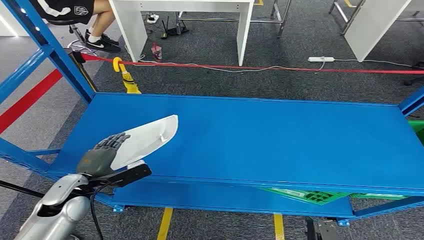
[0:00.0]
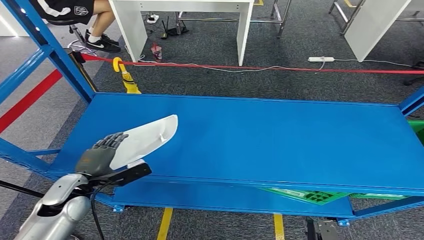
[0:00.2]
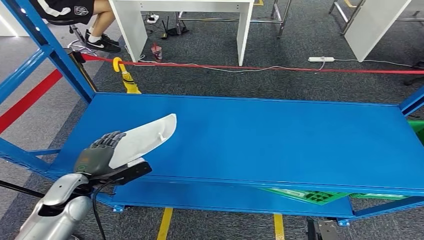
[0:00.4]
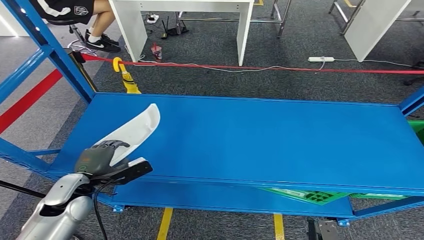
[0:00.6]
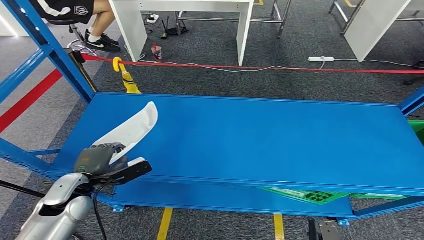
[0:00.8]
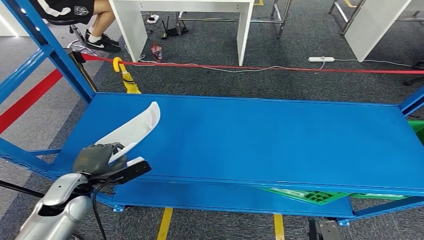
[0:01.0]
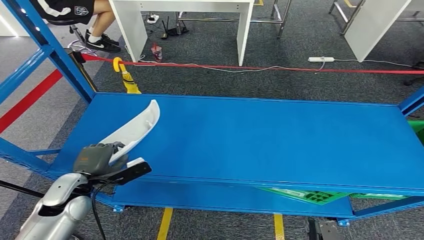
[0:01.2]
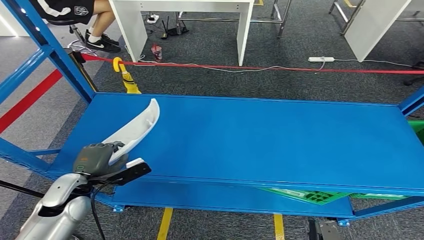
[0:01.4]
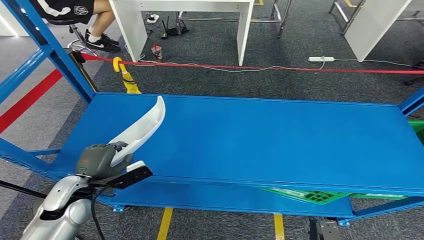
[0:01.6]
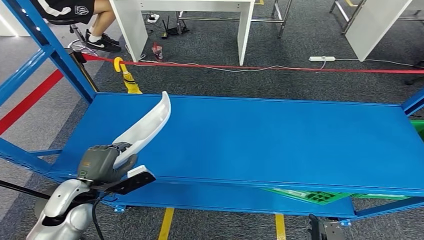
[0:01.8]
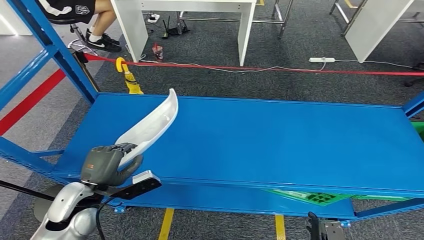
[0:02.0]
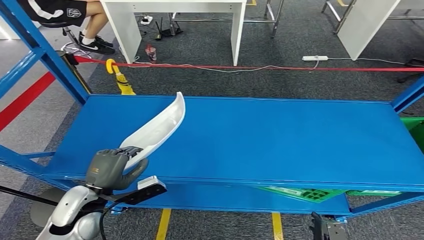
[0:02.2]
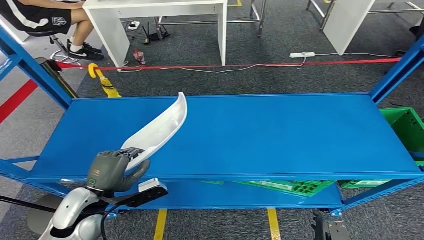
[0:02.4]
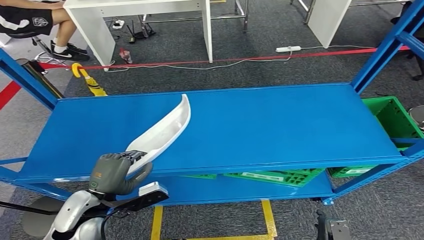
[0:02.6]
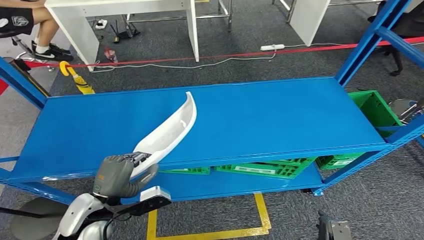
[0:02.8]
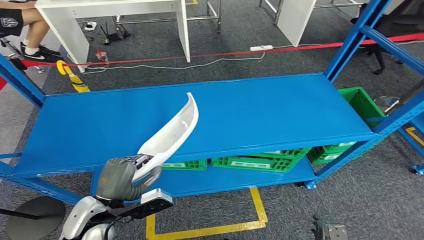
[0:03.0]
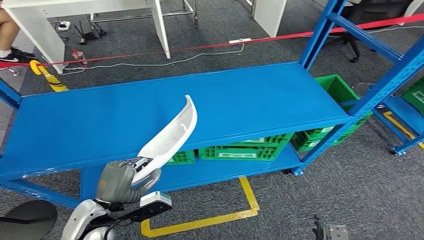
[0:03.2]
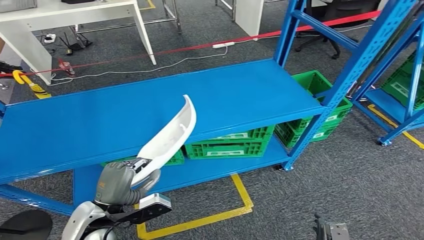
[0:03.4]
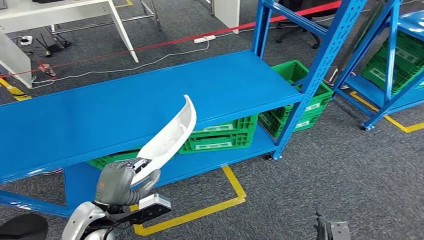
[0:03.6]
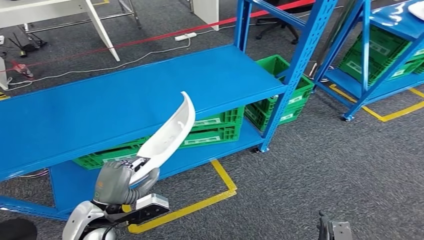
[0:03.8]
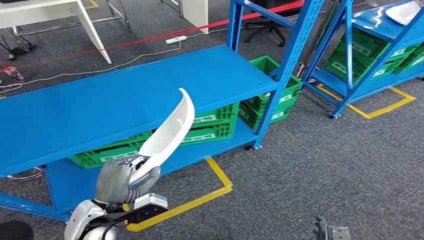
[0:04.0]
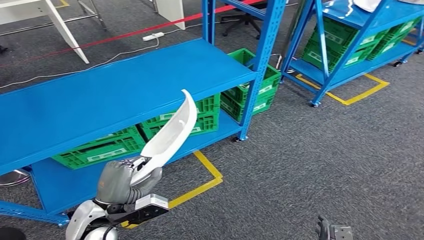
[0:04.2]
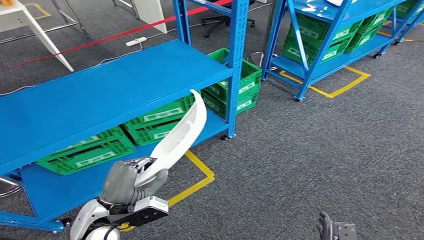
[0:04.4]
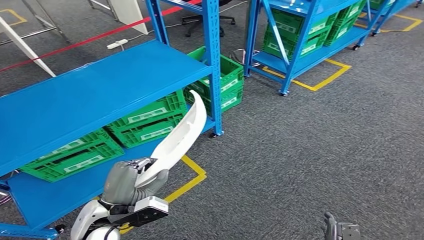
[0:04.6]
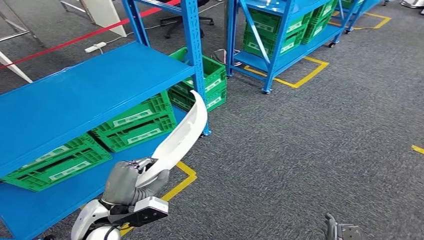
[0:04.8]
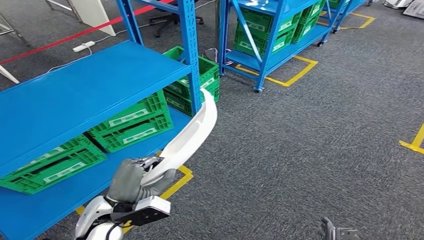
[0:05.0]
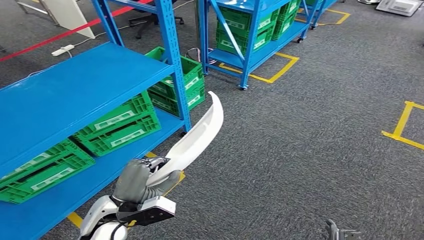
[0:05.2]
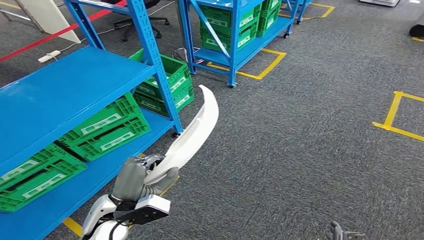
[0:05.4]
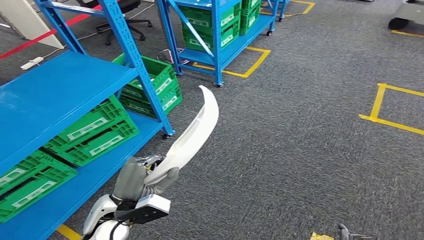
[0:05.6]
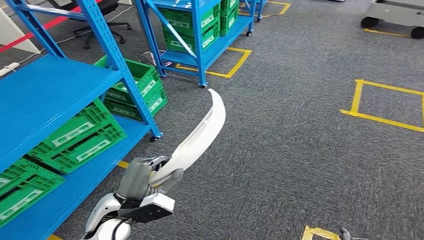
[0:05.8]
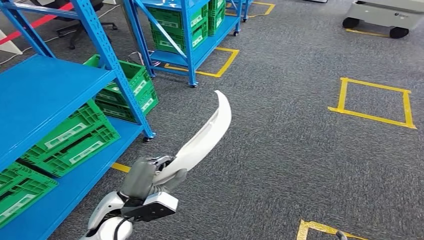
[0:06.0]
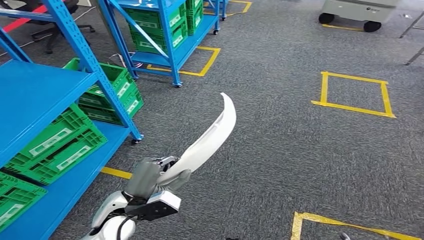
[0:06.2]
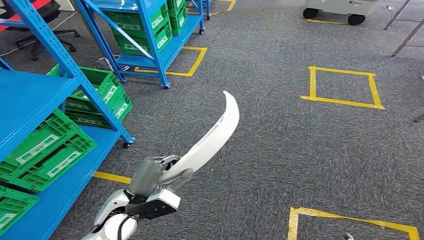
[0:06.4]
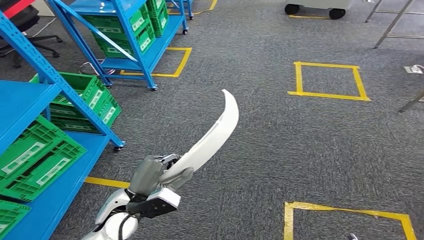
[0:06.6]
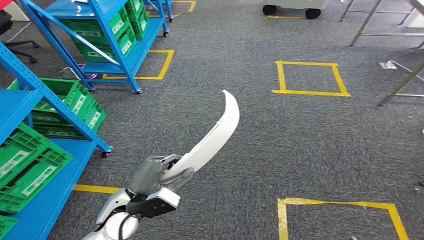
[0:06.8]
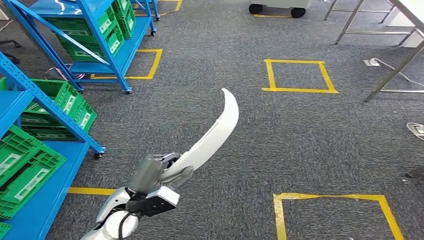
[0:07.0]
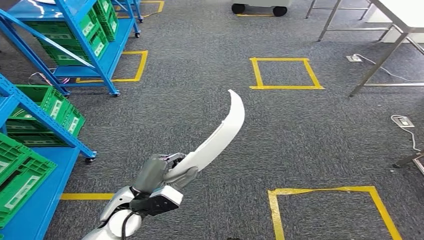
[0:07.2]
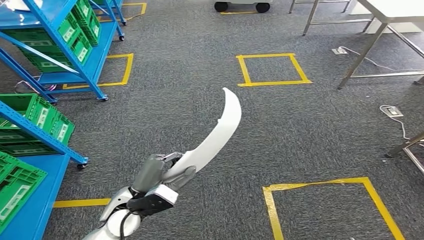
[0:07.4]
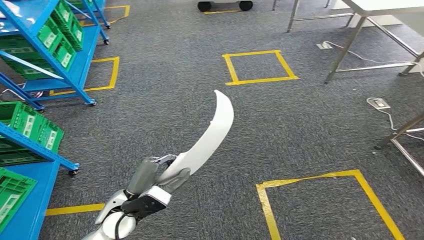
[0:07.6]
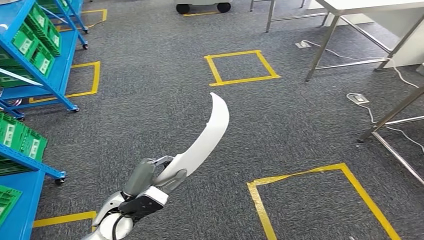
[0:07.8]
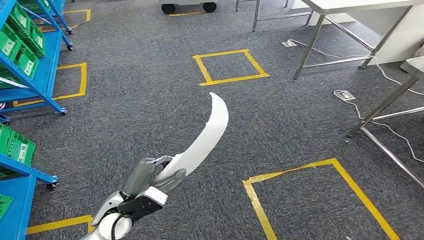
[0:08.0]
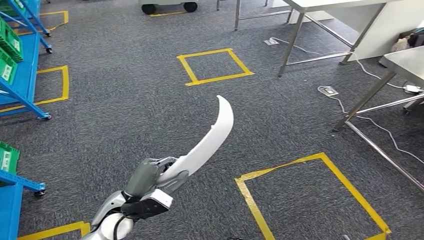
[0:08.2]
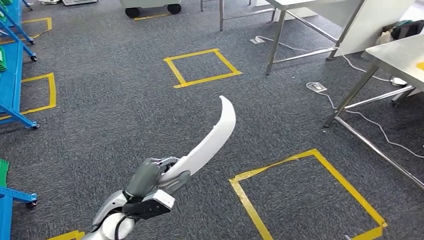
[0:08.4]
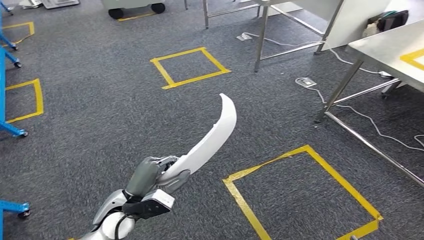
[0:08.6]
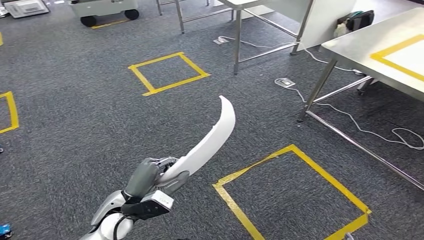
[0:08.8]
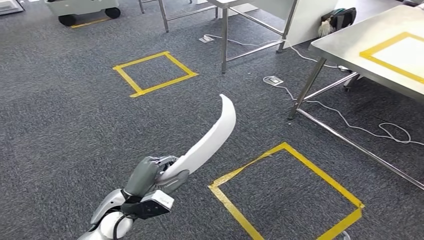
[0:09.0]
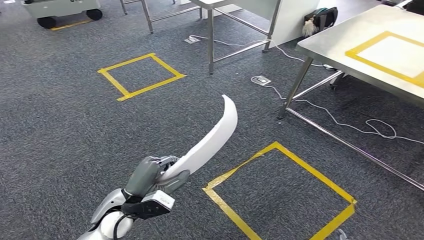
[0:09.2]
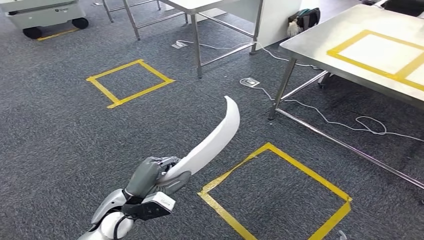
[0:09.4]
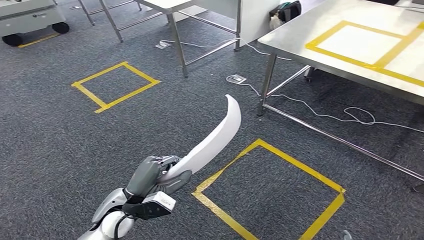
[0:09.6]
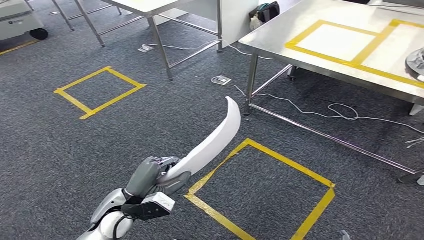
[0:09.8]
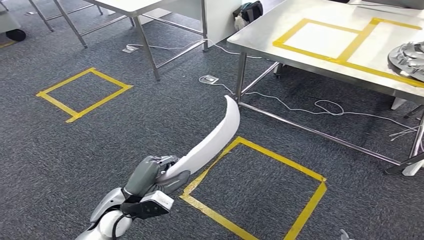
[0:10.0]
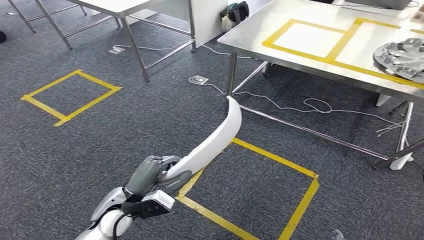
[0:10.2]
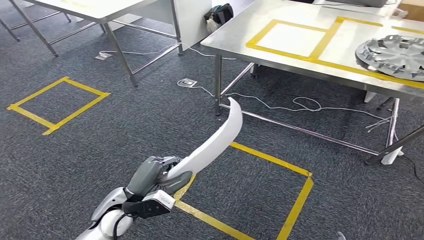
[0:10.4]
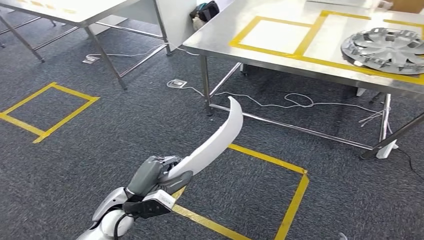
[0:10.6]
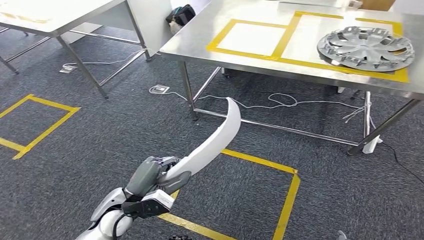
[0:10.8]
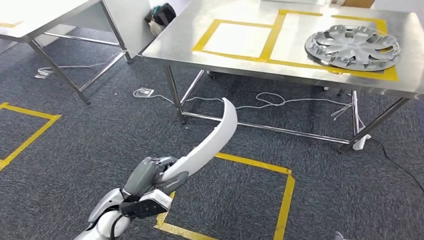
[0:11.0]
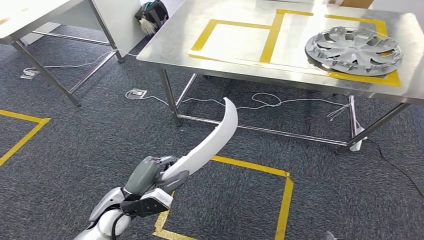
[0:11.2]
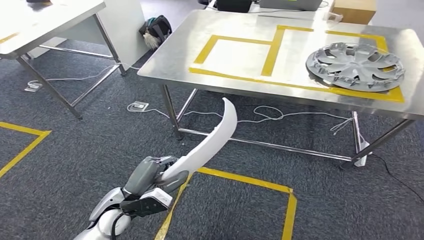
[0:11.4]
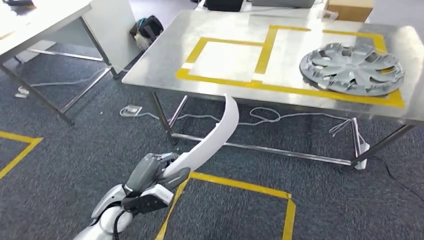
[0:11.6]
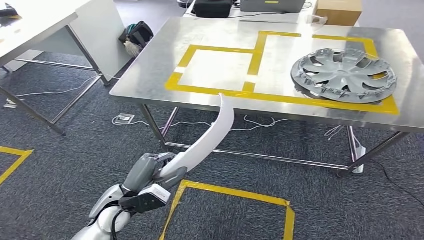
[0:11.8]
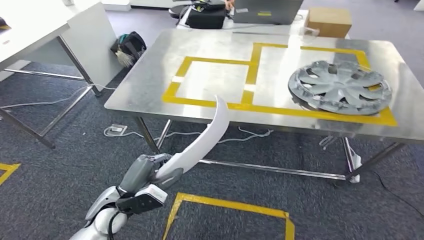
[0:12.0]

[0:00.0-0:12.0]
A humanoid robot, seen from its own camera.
Step, 0:00.0 to 0:02.4: Pick up the small parts from the shelf.
Step, 0:02.6 to 0:11.4: Move the small parts to the workbench.

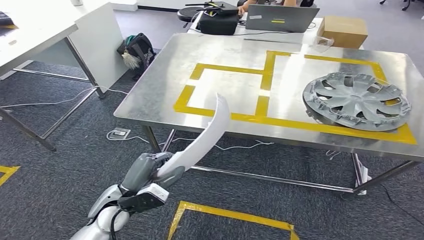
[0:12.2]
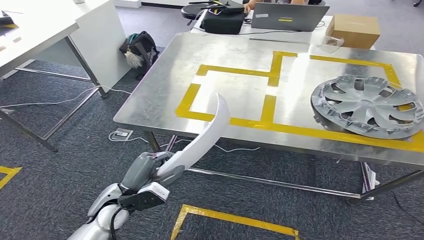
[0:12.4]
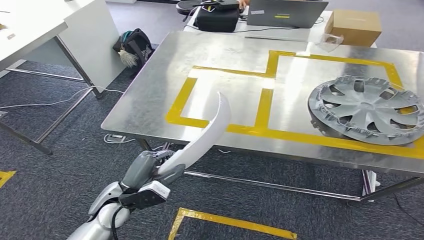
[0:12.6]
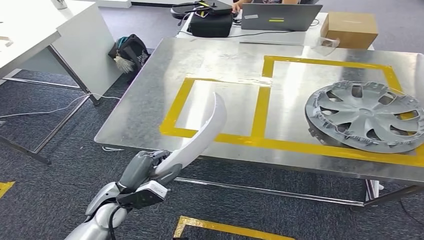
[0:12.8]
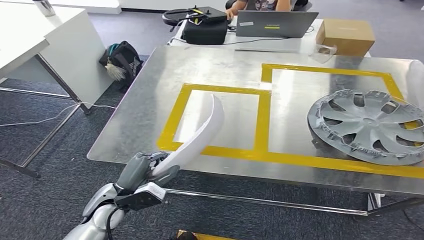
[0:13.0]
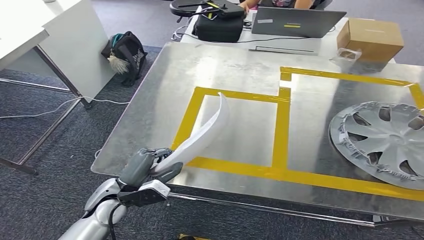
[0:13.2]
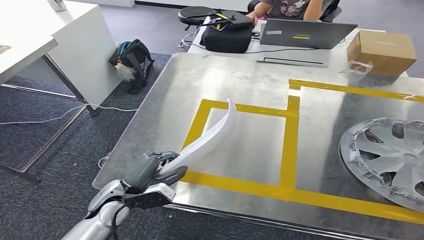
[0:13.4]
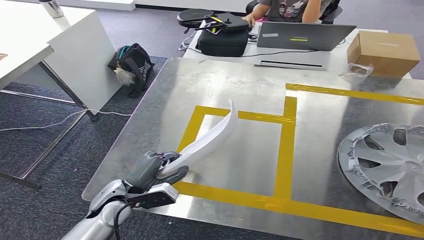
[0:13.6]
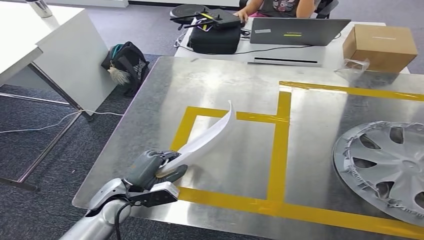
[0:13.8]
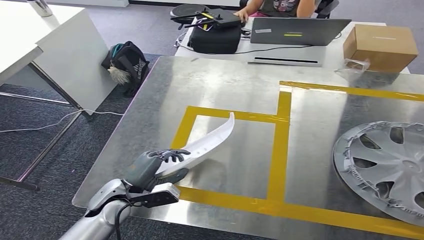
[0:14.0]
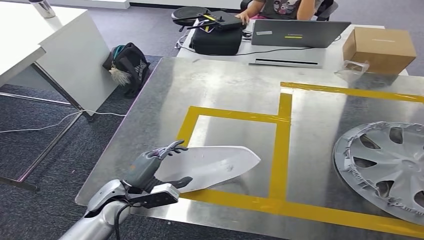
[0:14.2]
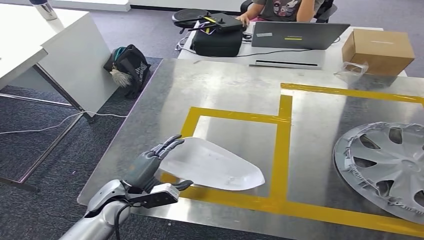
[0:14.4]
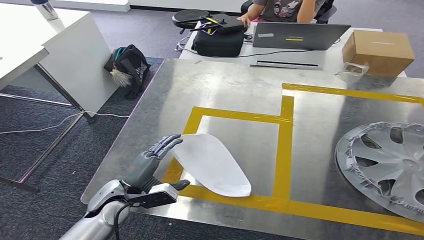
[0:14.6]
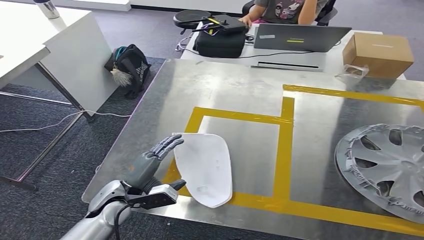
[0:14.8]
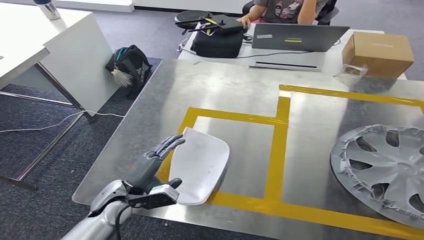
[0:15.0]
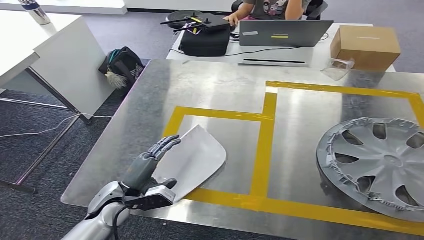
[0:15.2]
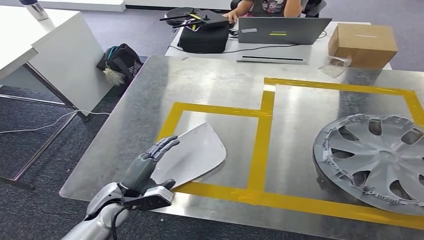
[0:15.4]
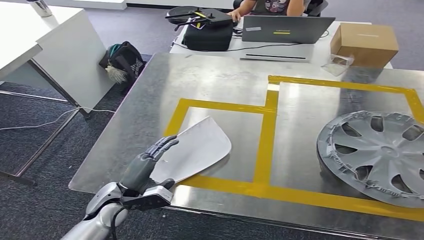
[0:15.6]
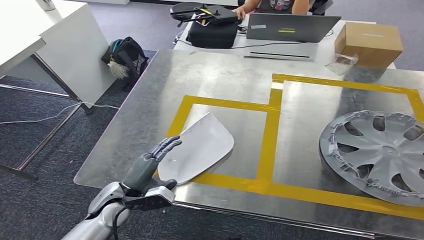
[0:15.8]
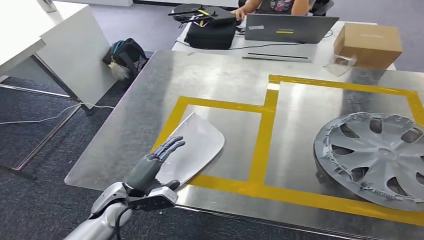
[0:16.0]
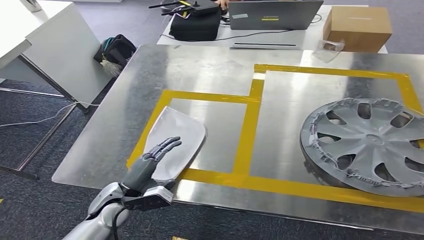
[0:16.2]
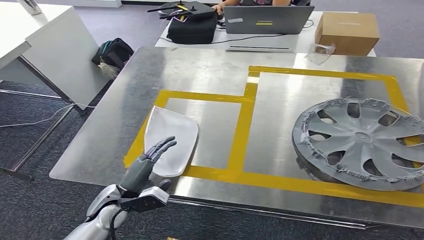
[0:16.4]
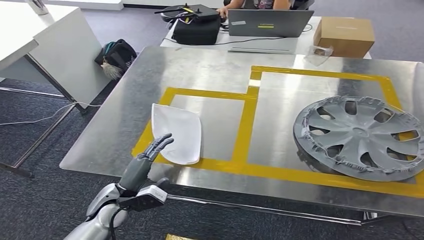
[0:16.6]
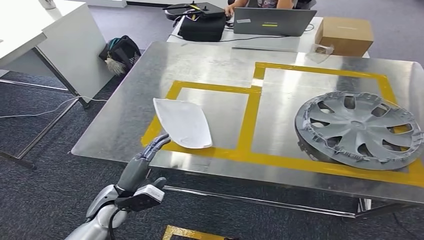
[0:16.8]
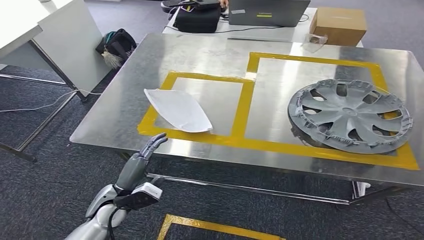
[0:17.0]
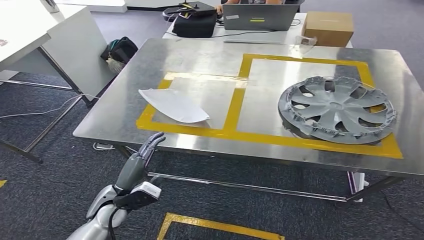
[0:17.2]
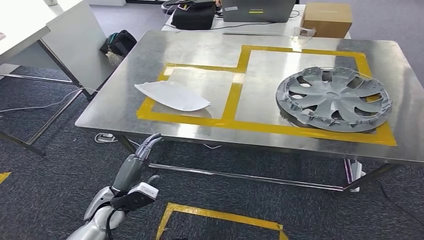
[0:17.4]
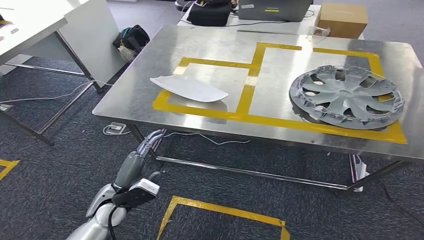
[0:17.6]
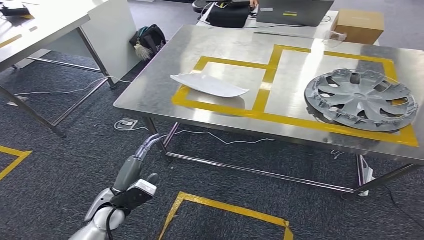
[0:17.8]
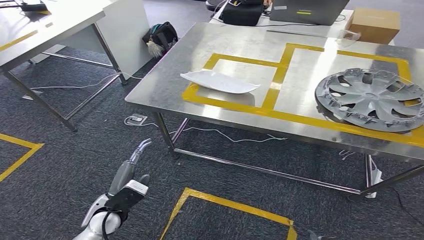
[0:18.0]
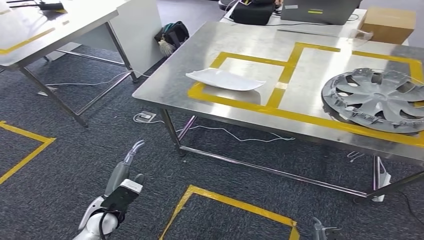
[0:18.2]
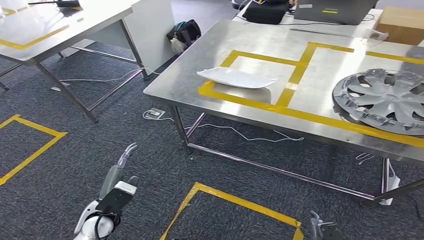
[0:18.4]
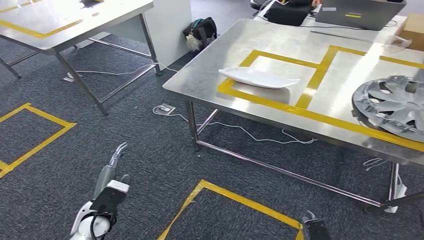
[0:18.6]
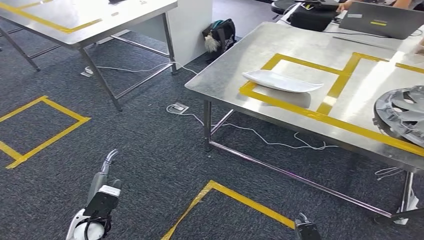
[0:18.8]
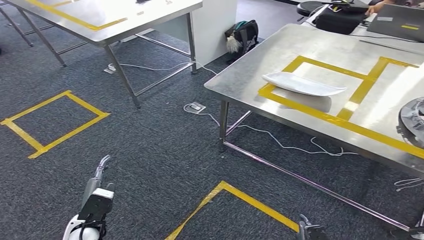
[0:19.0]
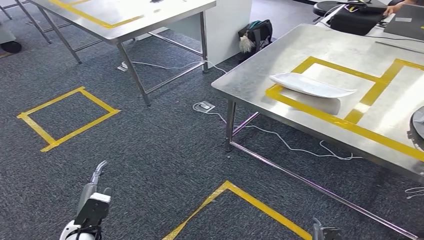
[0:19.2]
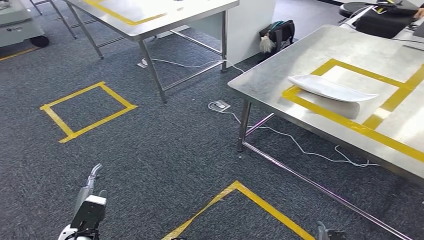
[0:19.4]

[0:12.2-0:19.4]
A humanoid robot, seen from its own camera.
Step, 0:12.2 to 0:17.4: Insert the small parts into the corresponding holes on the workbench.
